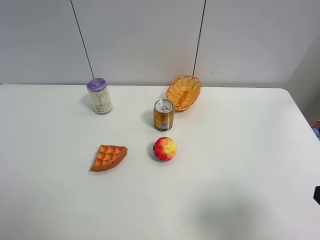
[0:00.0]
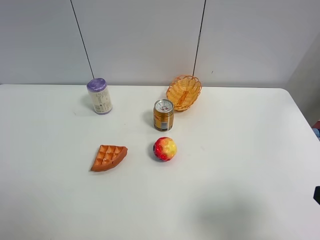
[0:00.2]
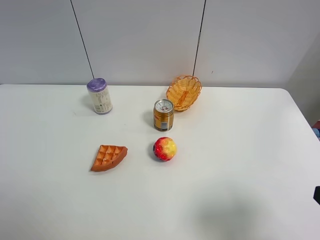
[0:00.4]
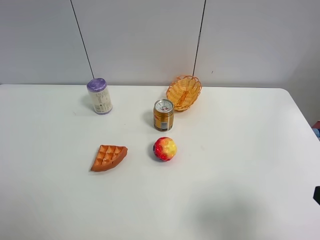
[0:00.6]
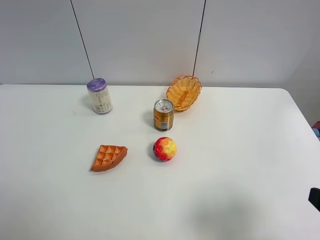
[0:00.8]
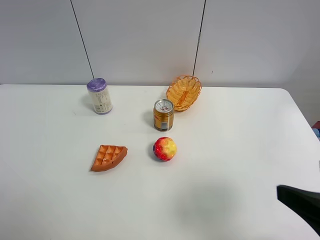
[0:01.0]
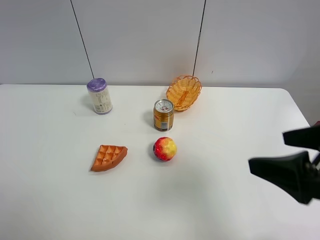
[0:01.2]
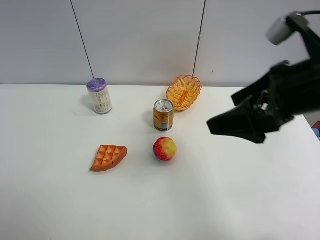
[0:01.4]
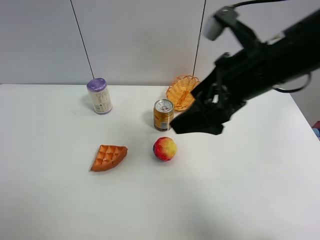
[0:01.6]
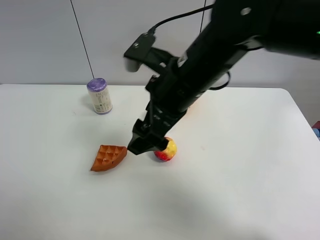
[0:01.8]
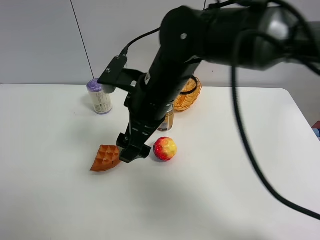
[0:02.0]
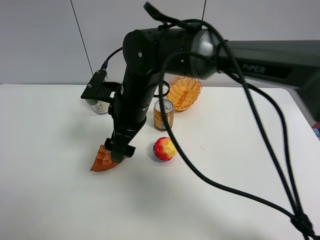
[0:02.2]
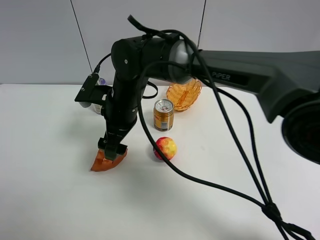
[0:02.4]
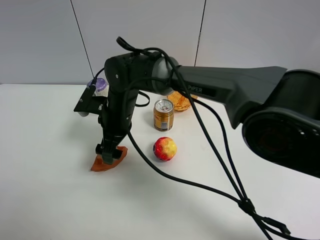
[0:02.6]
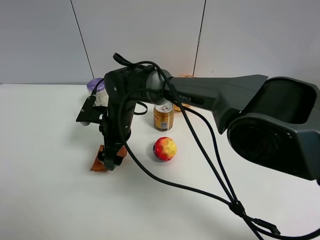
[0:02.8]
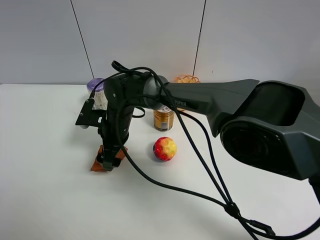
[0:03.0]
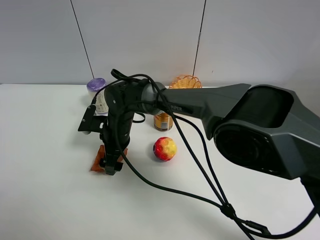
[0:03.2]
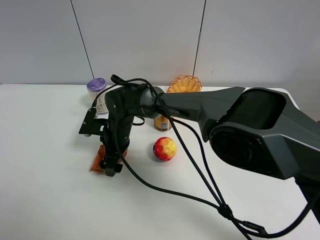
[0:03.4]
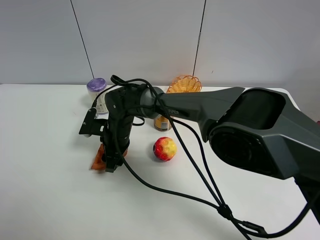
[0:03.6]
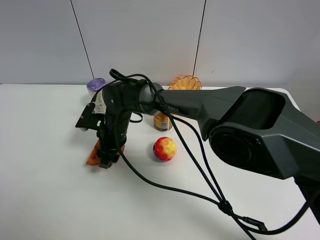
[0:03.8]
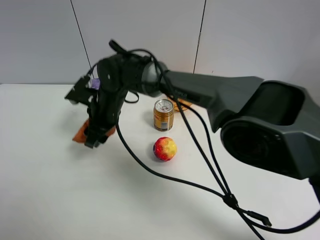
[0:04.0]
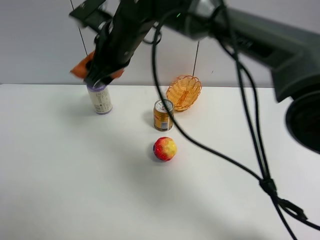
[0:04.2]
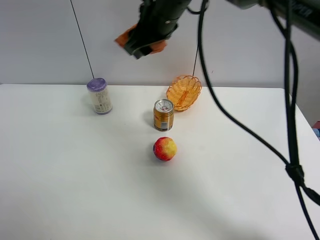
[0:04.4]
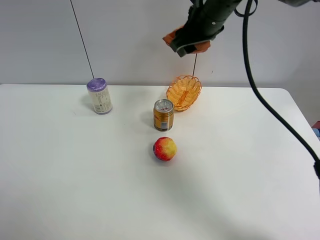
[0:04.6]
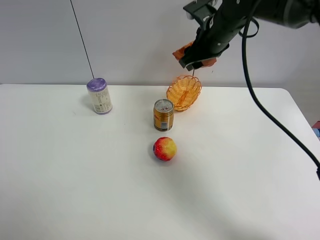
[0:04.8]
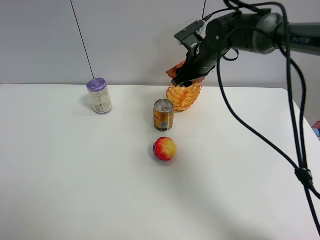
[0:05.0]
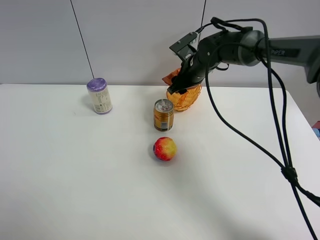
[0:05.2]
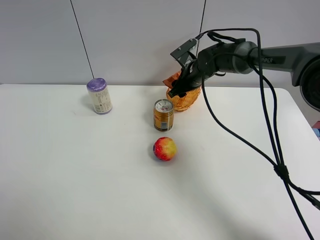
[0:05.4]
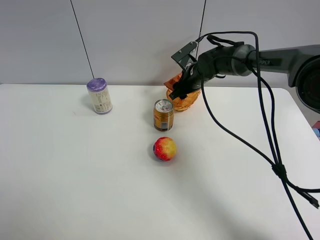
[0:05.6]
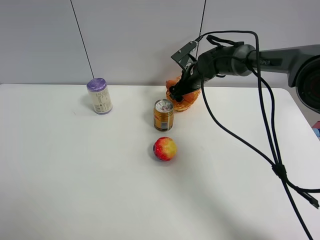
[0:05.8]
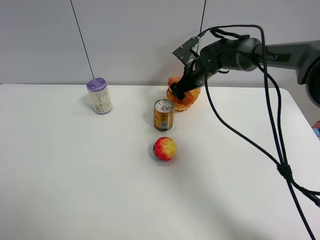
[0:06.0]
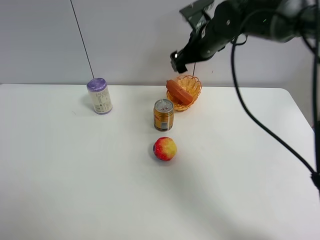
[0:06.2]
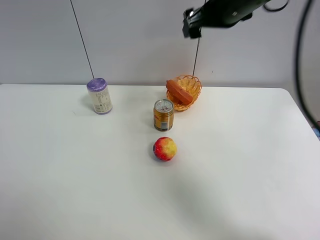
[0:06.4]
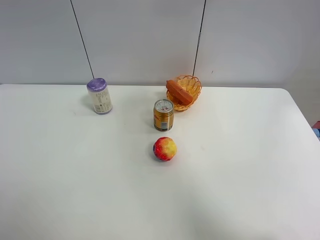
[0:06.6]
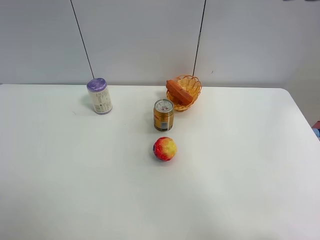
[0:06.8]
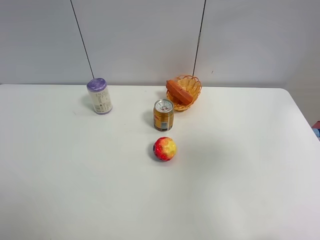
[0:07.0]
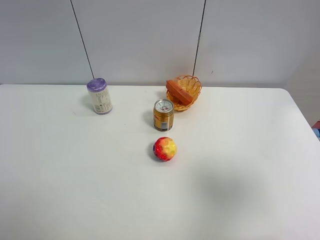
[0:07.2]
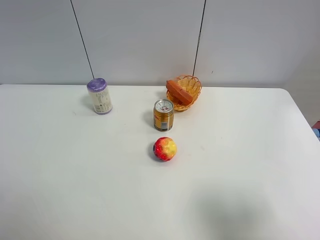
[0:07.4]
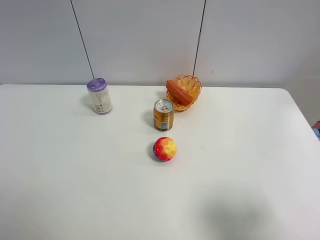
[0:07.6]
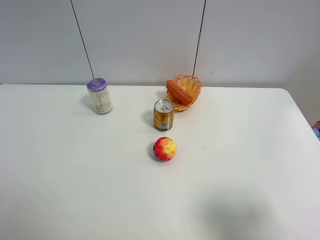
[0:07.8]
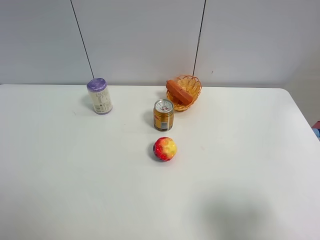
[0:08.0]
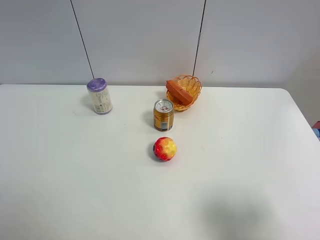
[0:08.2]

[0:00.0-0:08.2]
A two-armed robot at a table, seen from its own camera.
Task of the whole recording: Put the bakery in the basket.
Step, 0:00.0 to 0:03.6: Grasp the bread with right gripper.
Step, 0:03.8 to 0:06.4: Place the bread in the basket with right gripper.
0:00.0 to 0:01.6: The right gripper is displaced forward and to the left by roughly 30 cm.
0:01.6 to 0:03.2: The right gripper shifts about 30 cm downward, to the left and forward.
0:03.2 to 0:05.0: The right gripper goes some 25 cm to the right, forward and upward, and closes.
0:05.0 to 0:06.6: The right gripper heads upward and backward, covering approximately 30 cm, and opens.
0:06.6 to 0:08.2: The right gripper shifts about 30 cm backward and downward.

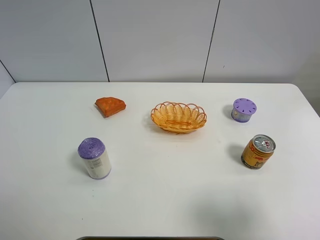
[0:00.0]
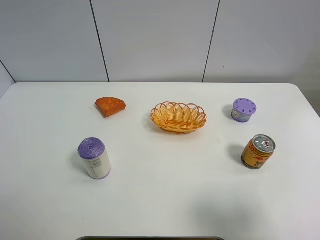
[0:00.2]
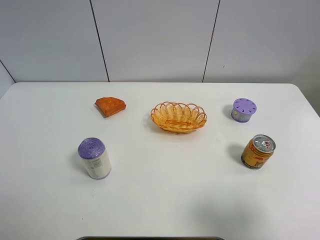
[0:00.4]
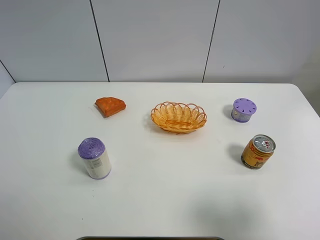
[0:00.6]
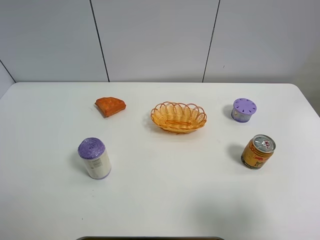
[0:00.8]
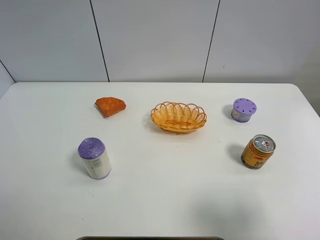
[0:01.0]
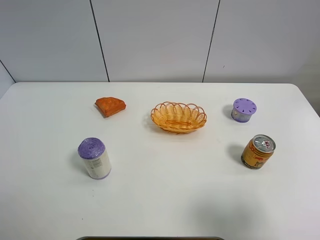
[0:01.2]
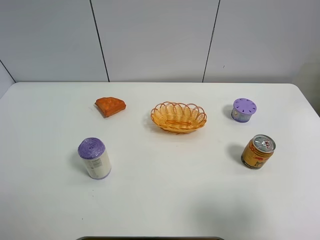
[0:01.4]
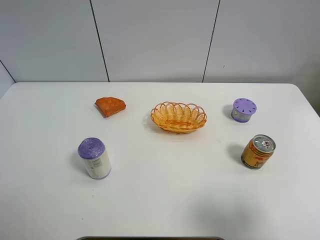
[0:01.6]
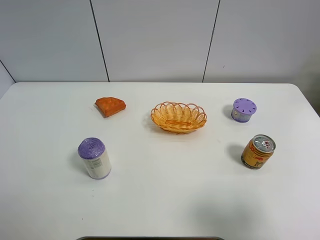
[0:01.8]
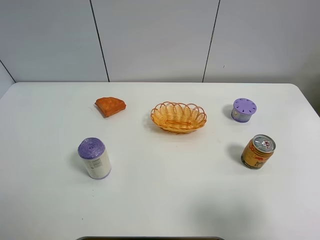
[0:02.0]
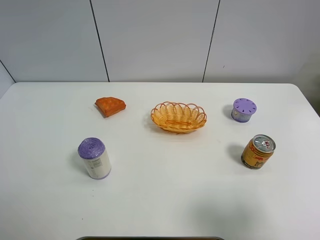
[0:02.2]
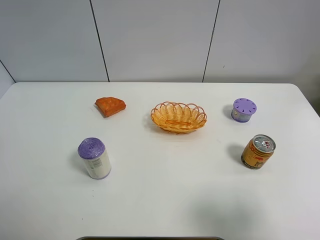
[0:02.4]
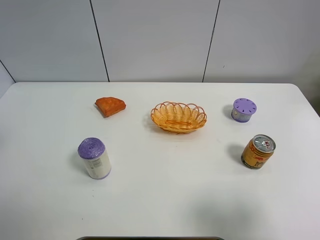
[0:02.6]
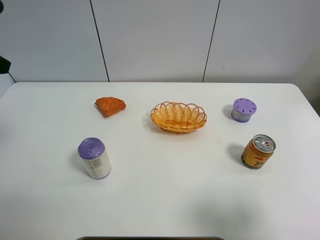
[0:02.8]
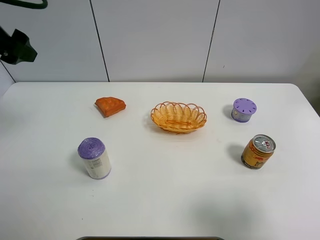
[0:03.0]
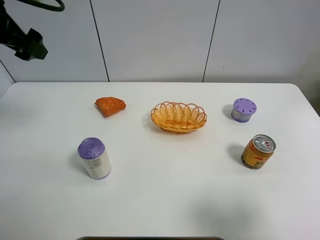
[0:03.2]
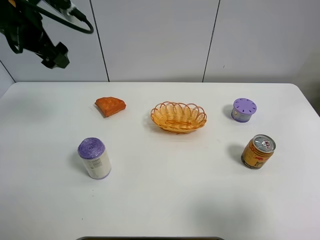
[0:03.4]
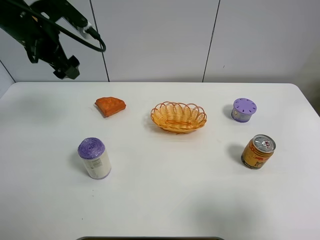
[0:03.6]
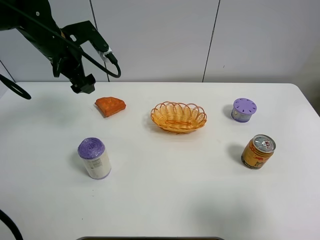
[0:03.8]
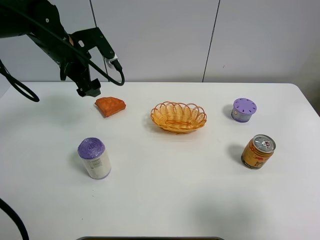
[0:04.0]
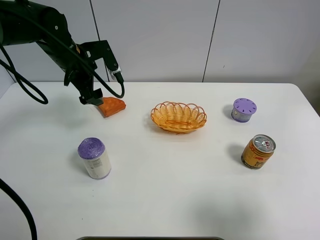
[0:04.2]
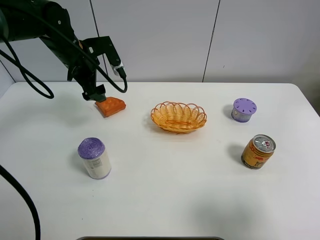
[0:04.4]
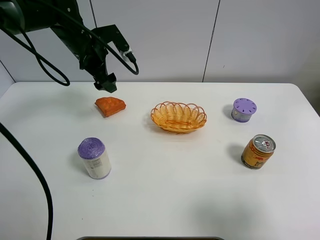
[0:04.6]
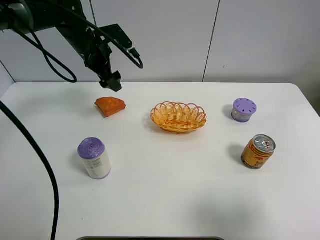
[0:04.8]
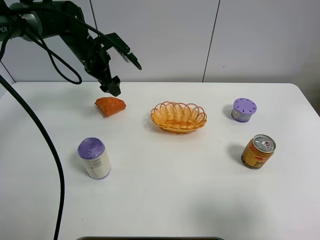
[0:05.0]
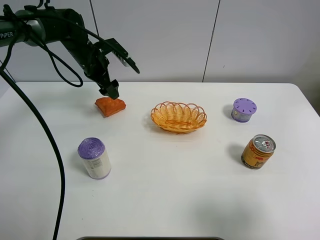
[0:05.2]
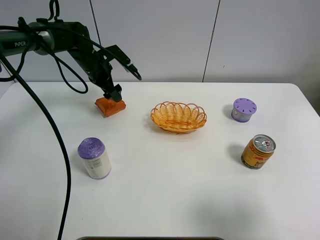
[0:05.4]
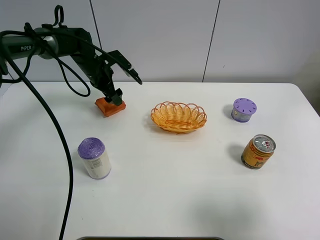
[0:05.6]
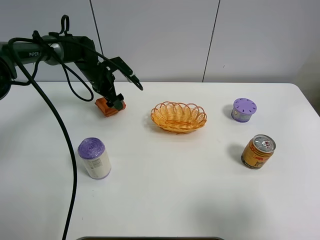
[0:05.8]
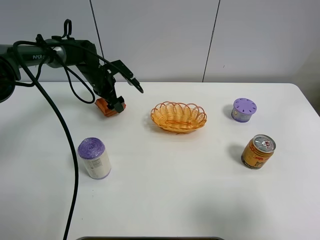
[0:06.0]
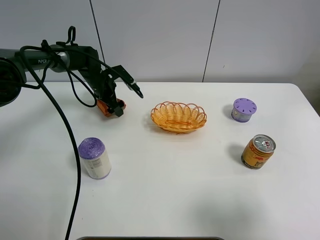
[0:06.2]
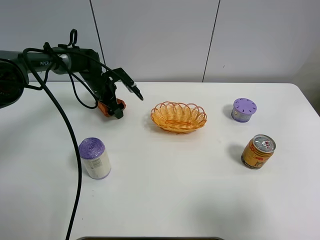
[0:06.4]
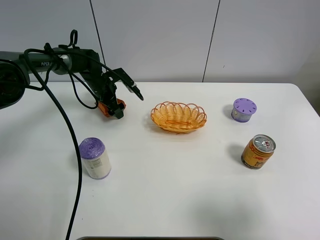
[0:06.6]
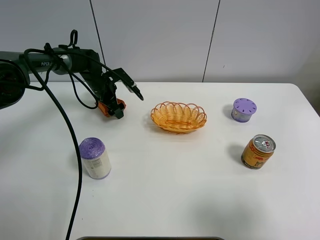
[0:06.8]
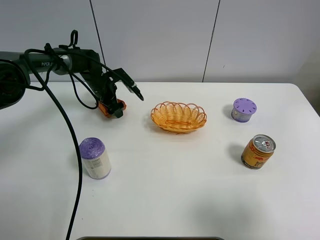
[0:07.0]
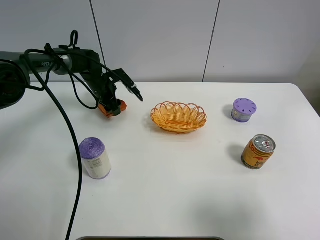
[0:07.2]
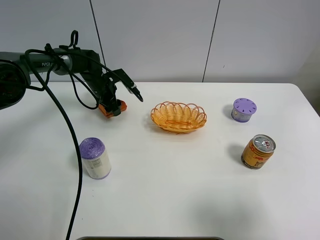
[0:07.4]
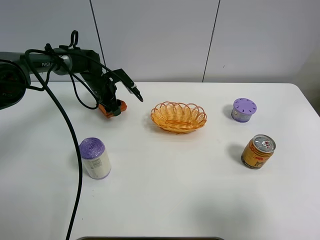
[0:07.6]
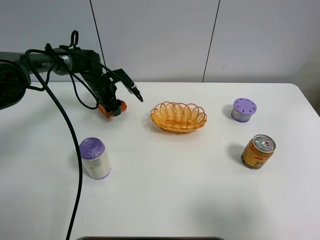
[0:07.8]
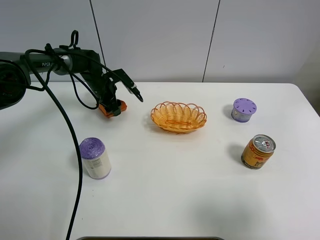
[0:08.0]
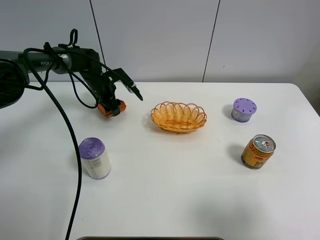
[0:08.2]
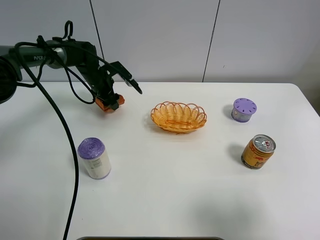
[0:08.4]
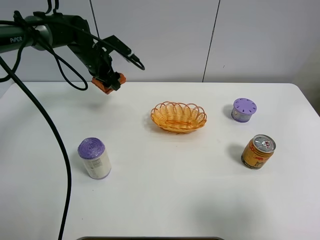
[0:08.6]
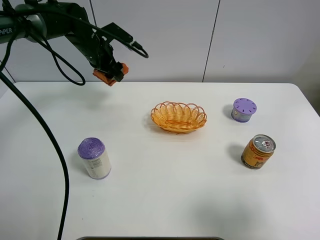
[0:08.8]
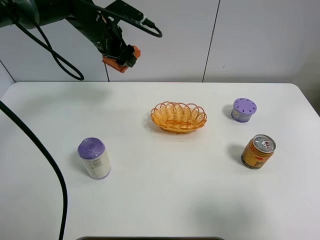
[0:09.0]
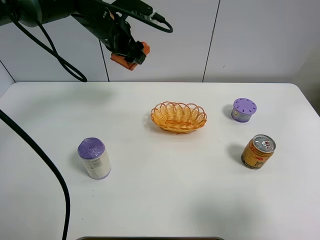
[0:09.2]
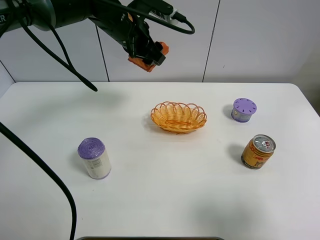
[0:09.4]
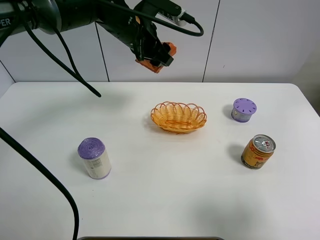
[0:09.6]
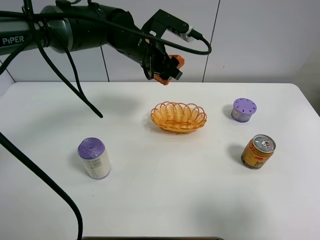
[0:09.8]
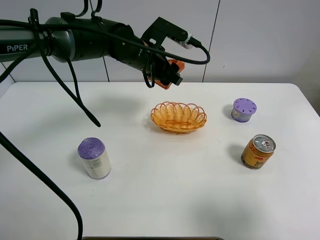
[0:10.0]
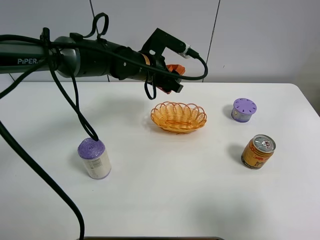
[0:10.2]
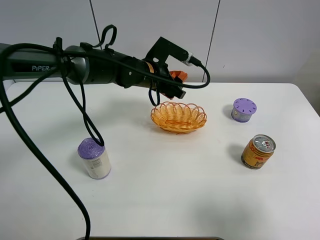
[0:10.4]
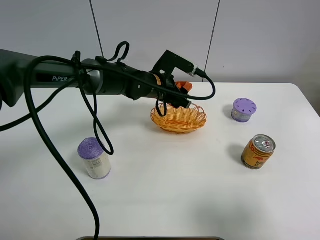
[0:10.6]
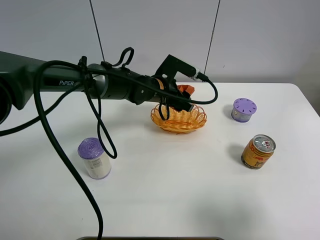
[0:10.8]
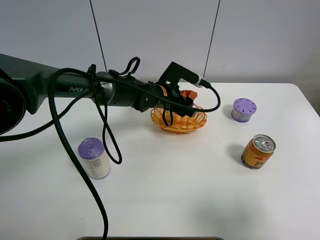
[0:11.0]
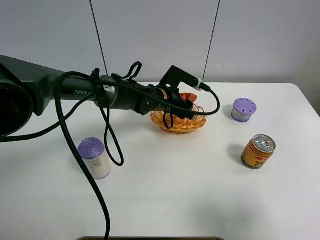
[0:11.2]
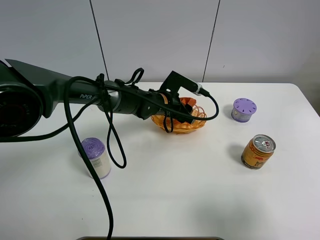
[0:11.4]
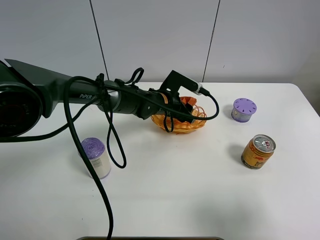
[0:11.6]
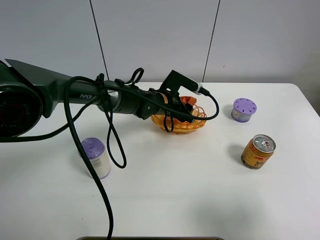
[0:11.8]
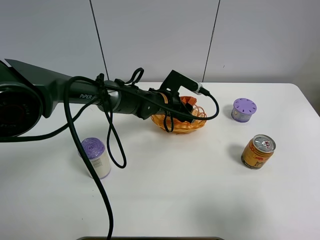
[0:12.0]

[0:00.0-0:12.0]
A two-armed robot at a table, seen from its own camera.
Task of the whole recording: Put the bakery in the basket.
0:01.6 to 0:03.0: The left gripper goes approximately 25 cm forward.
0:03.0 to 0:04.4: The left gripper moves downward, forward and to the right, roughly 20 cm.
0:04.4 to 0:06.0: The left gripper heads downward and forward, covering roughly 15 cm.
0:06.0 to 0:07.6: The left gripper closes up.
0:07.6 to 0:09.0: The left gripper shifts roughly 20 cm upward.
0:09.0 to 0:10.4: The left gripper moves to the right, downward and backward, about 15 cm.
0:10.4 to 0:12.0: The left gripper goes some 10 cm downward.

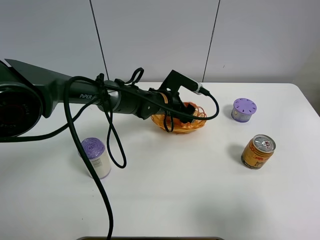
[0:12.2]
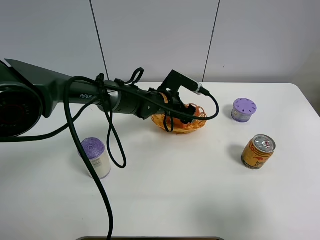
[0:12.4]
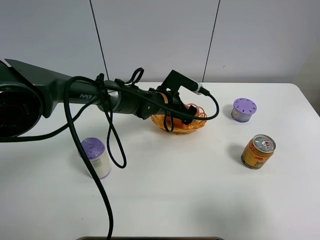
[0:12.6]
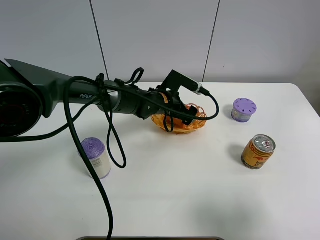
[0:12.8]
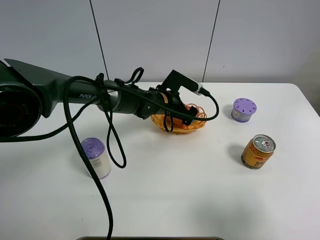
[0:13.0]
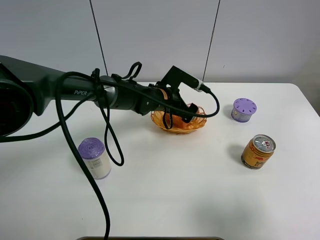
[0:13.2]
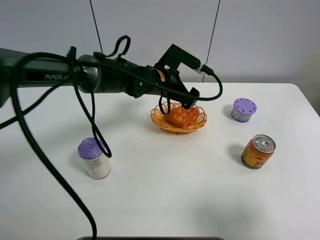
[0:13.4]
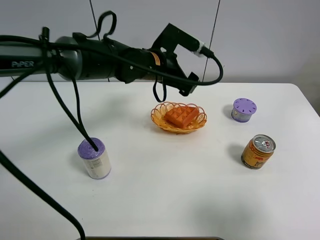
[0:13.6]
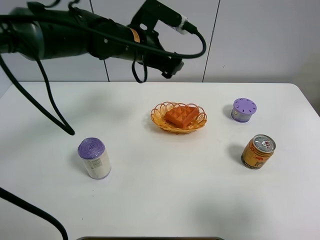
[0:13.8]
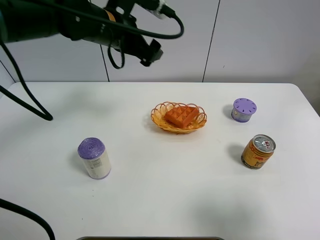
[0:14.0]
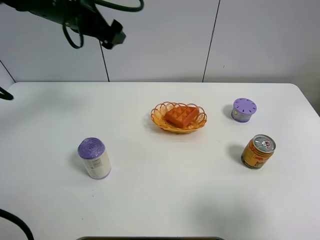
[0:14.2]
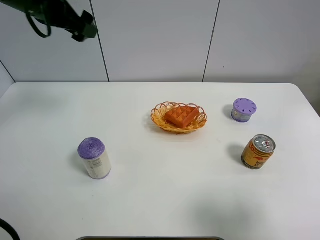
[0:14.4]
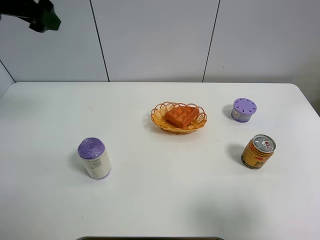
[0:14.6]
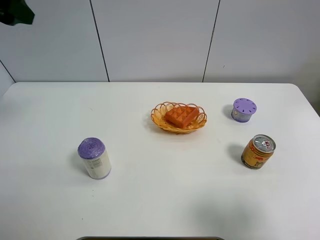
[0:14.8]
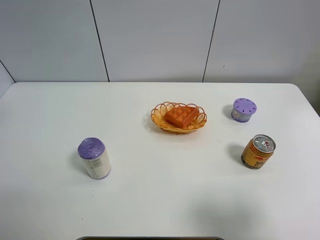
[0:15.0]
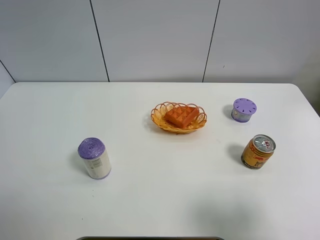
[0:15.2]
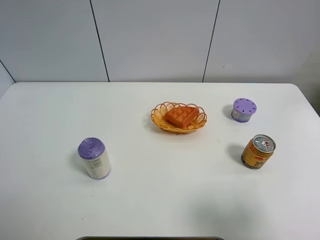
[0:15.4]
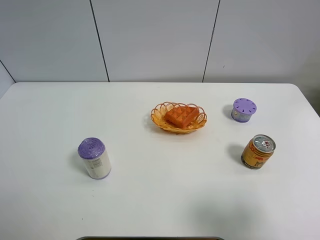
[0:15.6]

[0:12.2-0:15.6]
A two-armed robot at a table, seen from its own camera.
Task of the whole recording: Put the bakery in the basket.
0:12.2 to 0:13.8: The left gripper shifts some 20 cm upward, and opens up.
0:13.8 to 0:15.6: The left gripper is displaced to the left, backward and upward by some 40 cm.
